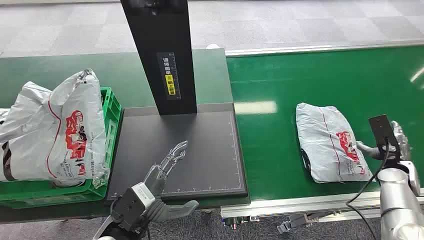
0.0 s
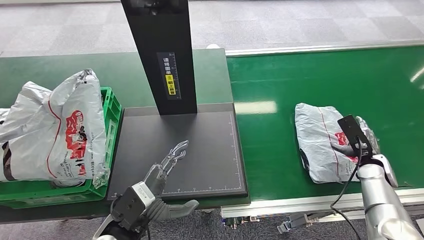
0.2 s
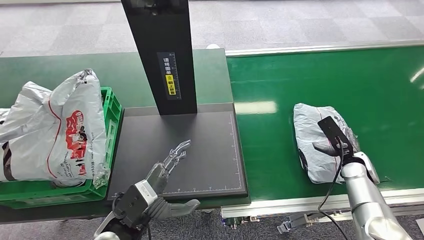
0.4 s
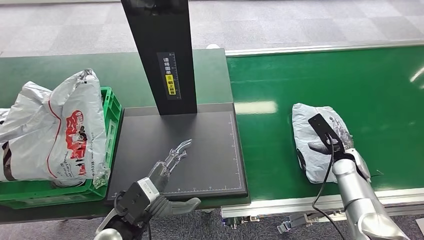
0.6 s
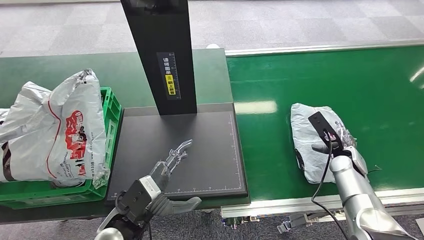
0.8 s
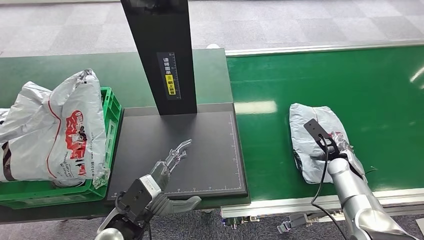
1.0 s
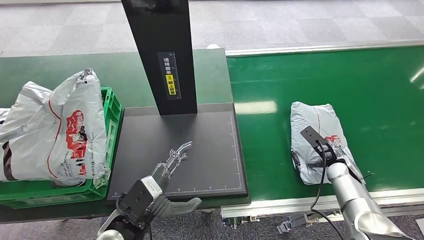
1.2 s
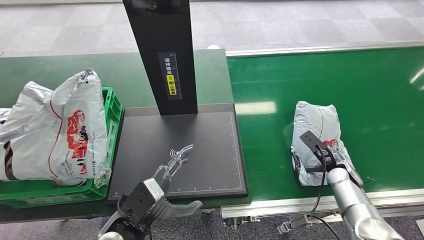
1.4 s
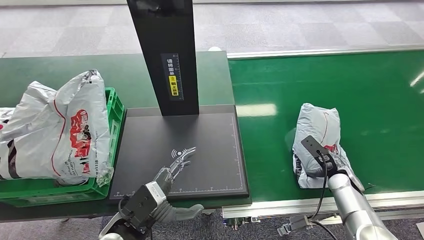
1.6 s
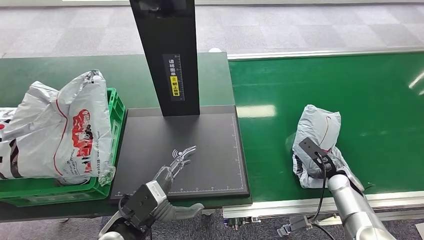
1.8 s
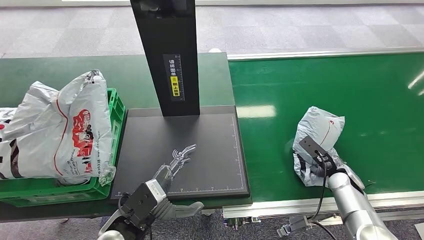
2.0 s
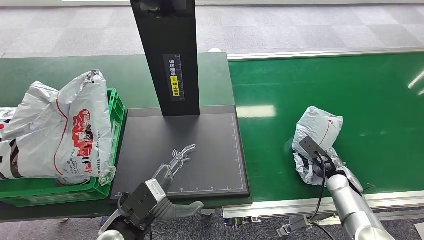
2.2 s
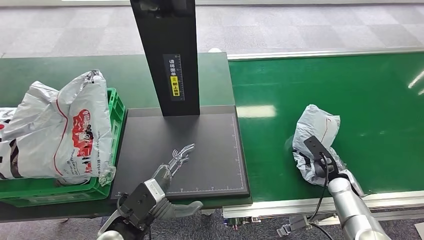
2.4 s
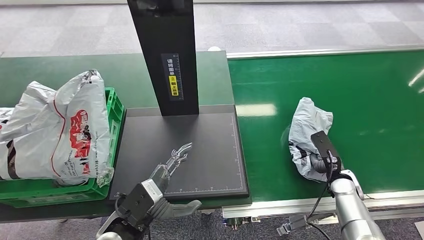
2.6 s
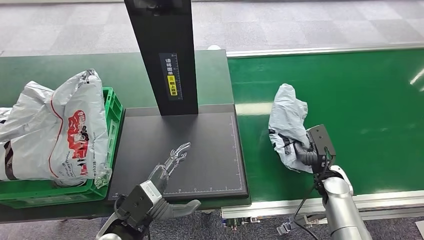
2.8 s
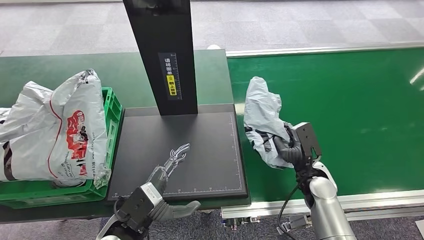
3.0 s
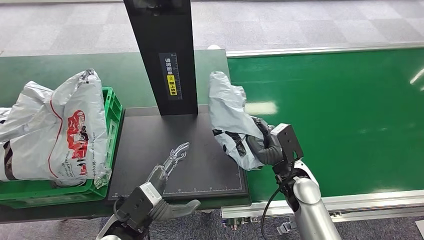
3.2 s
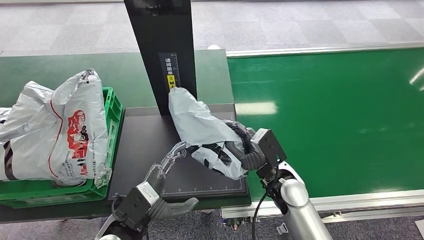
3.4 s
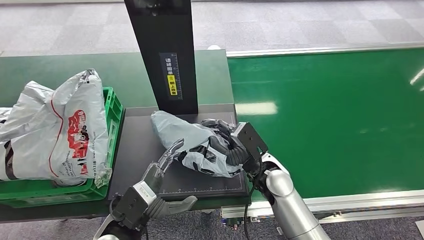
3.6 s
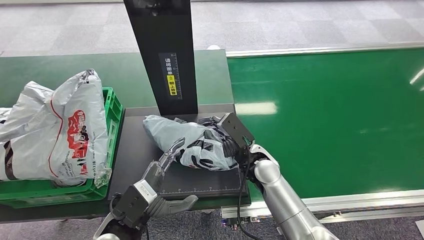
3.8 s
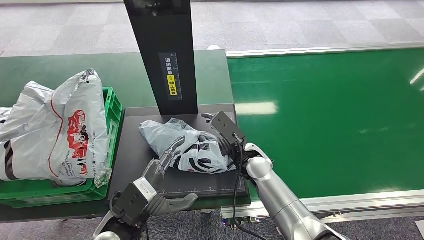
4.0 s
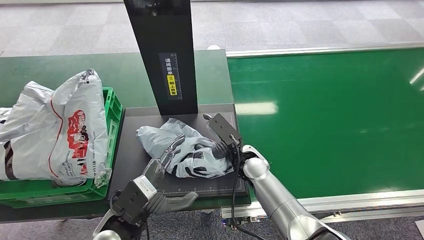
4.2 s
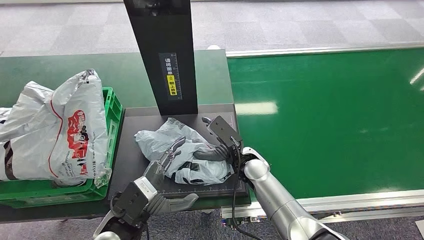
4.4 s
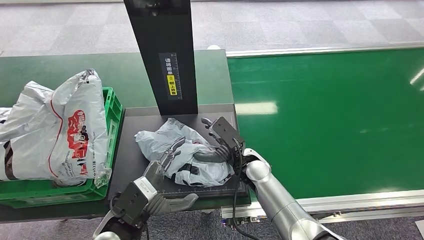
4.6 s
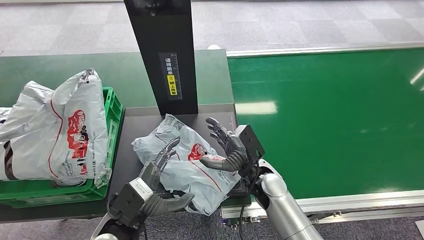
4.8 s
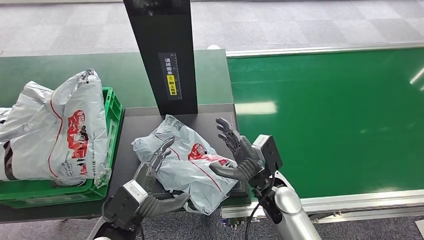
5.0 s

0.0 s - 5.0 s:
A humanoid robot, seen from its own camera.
Step, 0.0 s - 2.8 s: Pick up the package from the conveyor belt.
Step, 3.0 s - 5.0 s: Place the package onto the inbound machine.
3.4 s - 5.0 s: The right hand goes forward and returns, about 5 cm each way.
